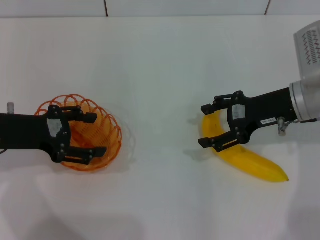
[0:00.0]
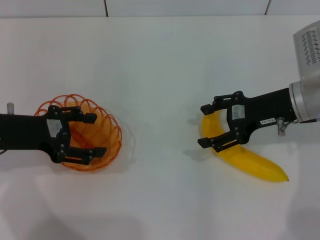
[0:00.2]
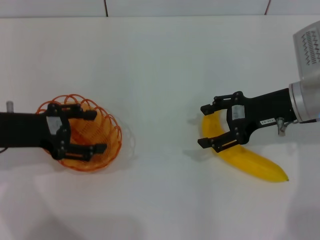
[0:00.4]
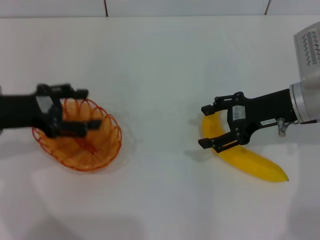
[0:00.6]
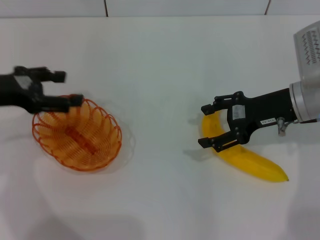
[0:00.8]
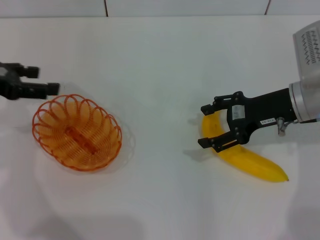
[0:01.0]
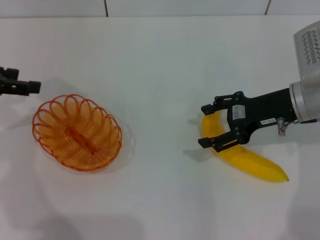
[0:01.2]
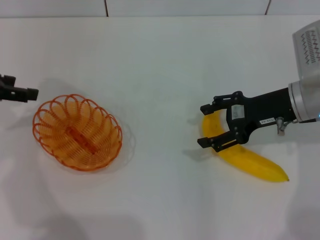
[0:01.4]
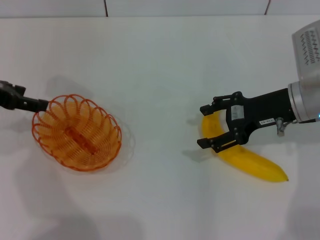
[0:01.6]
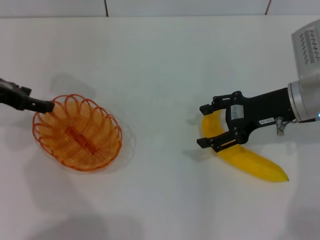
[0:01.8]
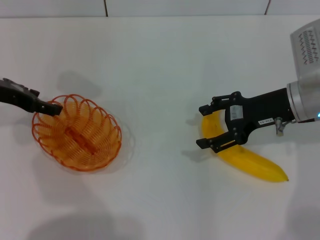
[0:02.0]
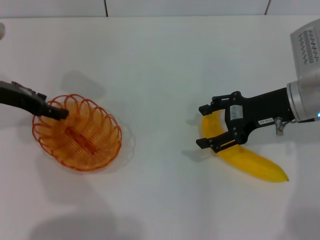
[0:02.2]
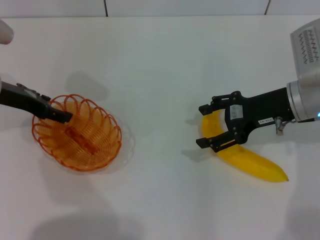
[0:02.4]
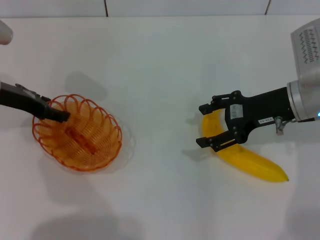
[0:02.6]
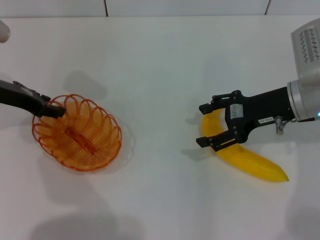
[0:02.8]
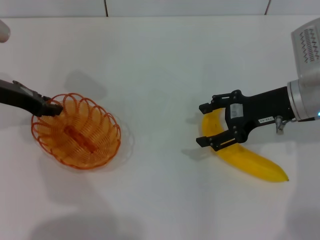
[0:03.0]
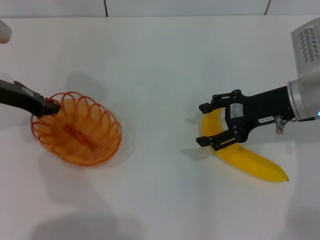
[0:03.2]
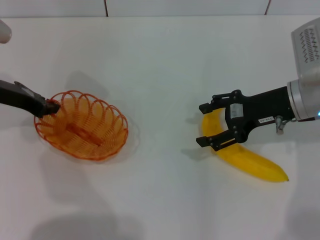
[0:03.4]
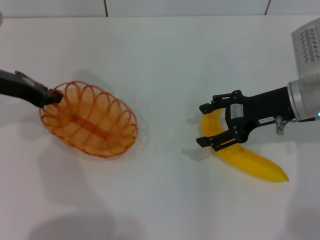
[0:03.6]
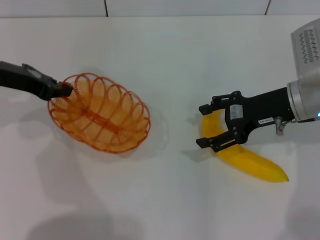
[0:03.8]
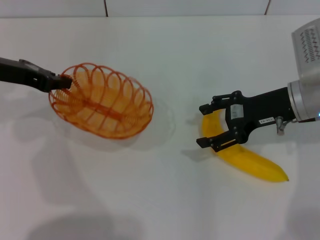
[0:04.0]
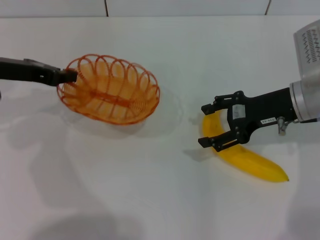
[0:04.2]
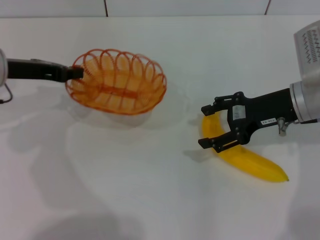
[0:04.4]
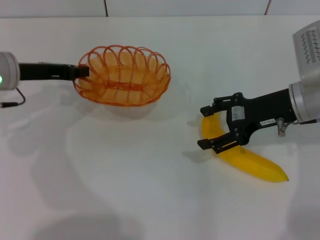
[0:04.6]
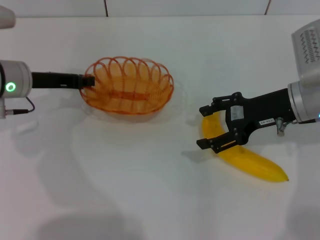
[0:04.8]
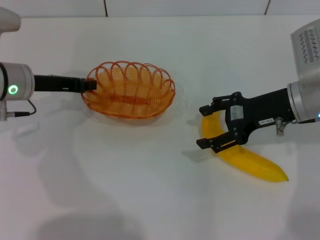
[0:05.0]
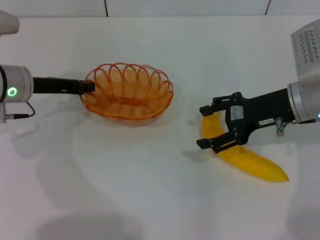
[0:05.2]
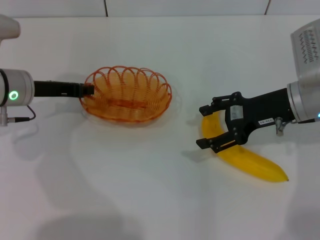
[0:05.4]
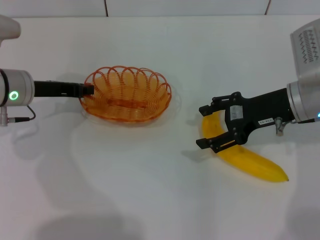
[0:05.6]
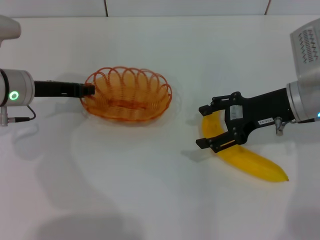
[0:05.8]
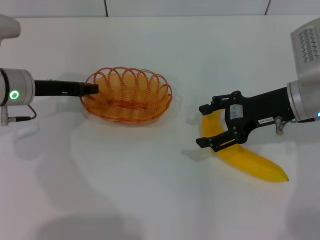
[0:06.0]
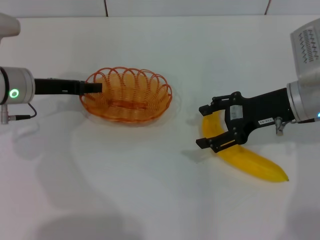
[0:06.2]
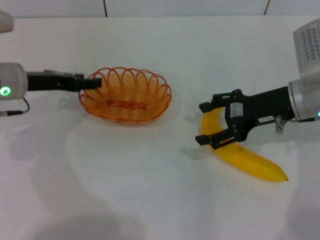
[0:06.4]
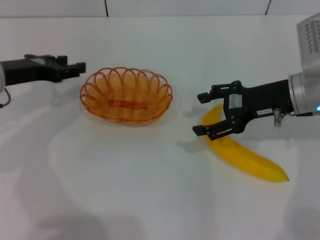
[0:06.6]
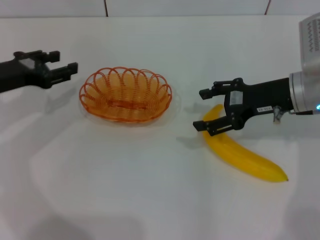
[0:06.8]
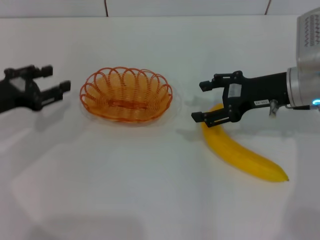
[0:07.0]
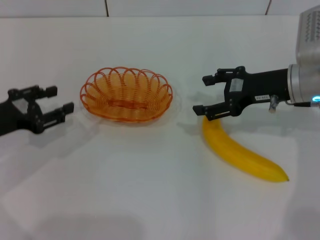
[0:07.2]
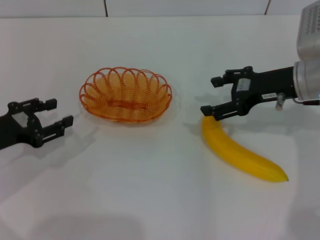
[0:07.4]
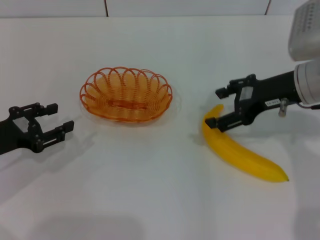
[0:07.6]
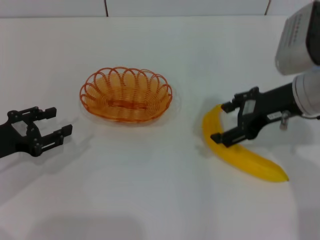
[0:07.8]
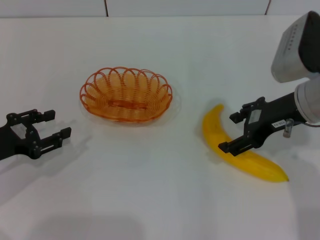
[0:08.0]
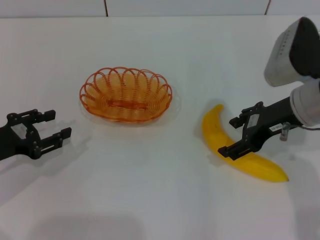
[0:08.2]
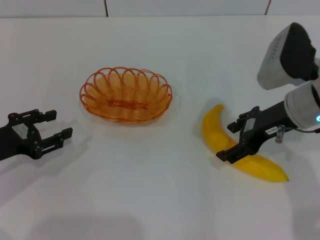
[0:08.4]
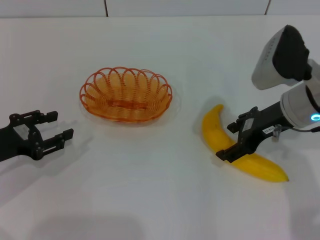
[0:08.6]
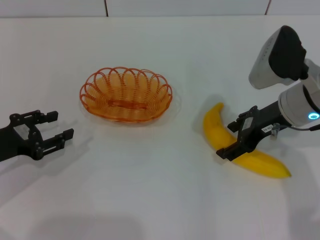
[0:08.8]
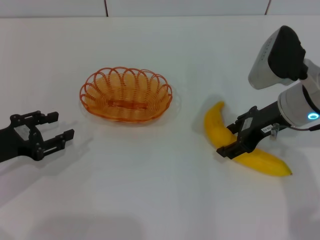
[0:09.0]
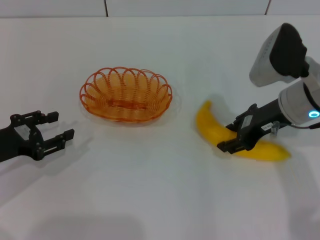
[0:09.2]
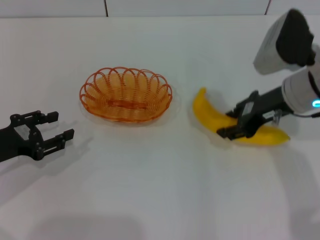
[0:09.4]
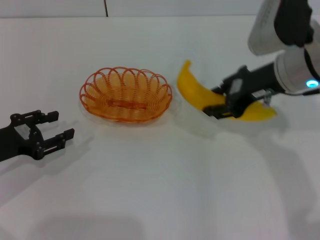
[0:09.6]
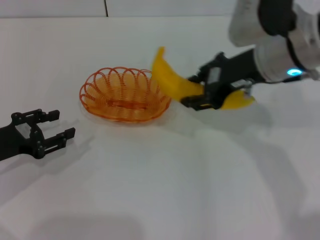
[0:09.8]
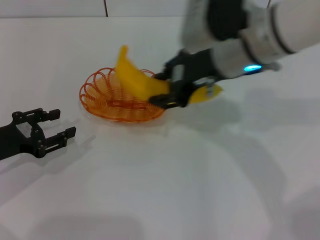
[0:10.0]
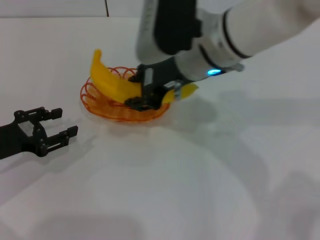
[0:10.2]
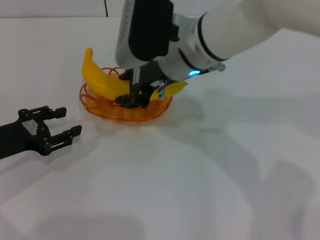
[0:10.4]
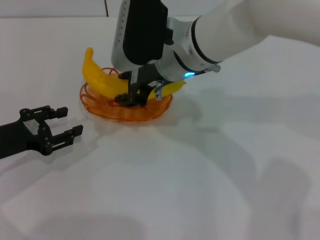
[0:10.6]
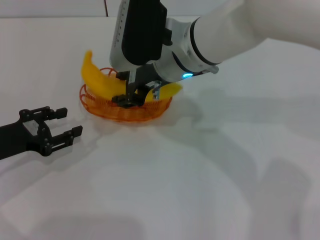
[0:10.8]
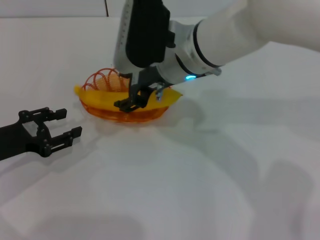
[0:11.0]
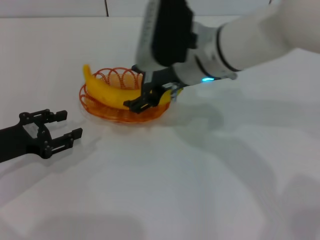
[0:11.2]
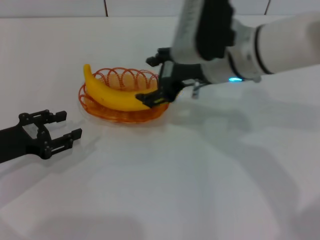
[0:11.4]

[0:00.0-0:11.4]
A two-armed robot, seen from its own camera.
Step, 0:00.0 to 0:03.6: Pick up the basket with the left gripper.
Step, 0:03.8 to 0:06.6: Place the basket in the center of view with the left gripper.
Step, 0:06.8 to 0:09.4: Pick up the banana with the right gripper.
Step, 0:09.6 to 0:11.4: Place the banana into the basket with the right gripper.
0:00.0 to 0:01.4: The left gripper is displaced upward and to the left by about 10 cm.
0:01.4 to 0:02.8: The left gripper goes about 5 cm to the right.
0:02.8 to 0:04.2: The left gripper closes its fingers.
0:04.2 to 0:05.6: The left gripper shifts about 5 cm downward.
0:05.6 to 0:07.2: The left gripper heads backward and to the left, covering about 10 cm, and opens its fingers.
0:08.6 to 0:10.0: The right gripper is displaced to the left and upward by approximately 15 cm, and closes up.
0:10.0 to 0:11.4: The right gripper opens its fingers.

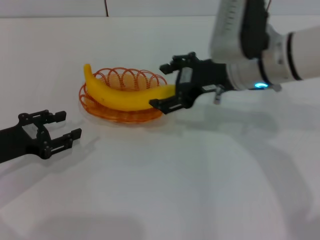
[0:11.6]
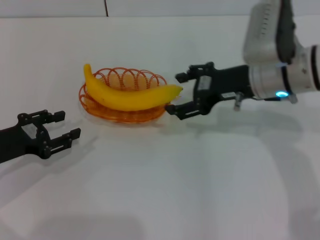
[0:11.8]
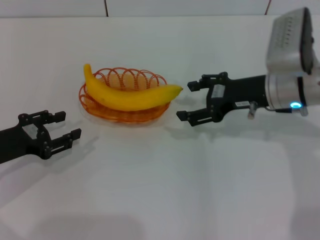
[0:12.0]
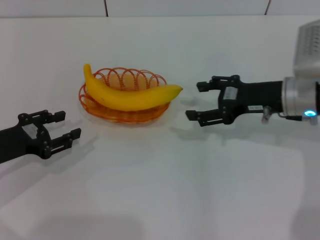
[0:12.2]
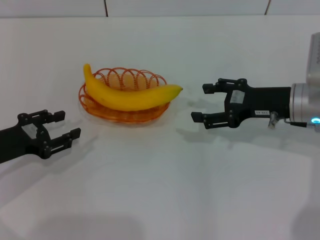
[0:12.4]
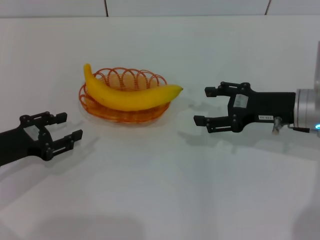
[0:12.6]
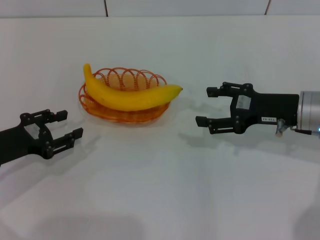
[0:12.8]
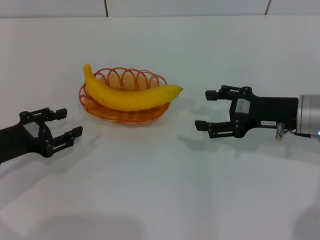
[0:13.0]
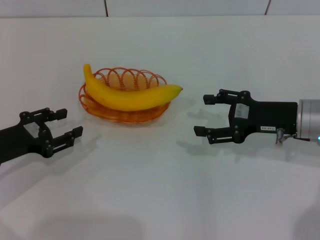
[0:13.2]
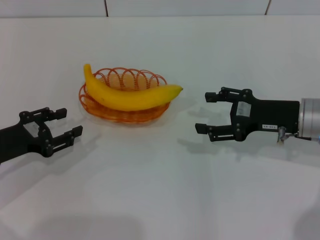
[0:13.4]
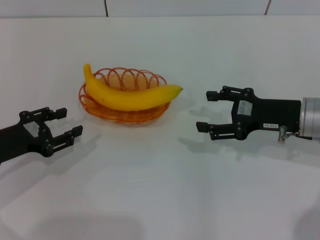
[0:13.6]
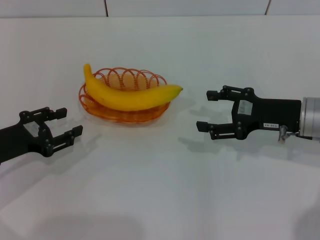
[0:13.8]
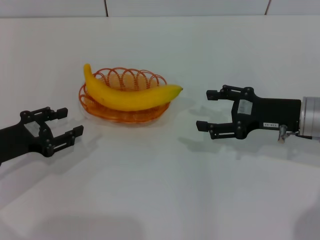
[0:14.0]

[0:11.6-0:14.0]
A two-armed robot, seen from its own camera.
0:11.6 to 0:12.8: The right gripper shifts roughly 15 cm to the right and downward.
0:12.8 to 0:14.0: The two grippers keep their place.

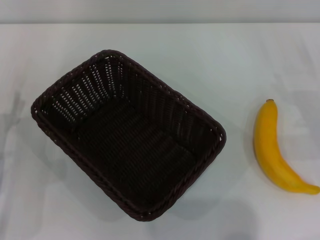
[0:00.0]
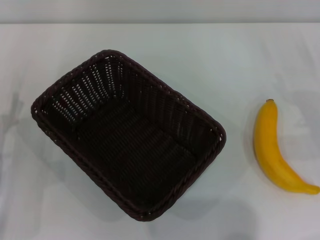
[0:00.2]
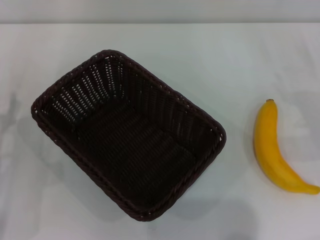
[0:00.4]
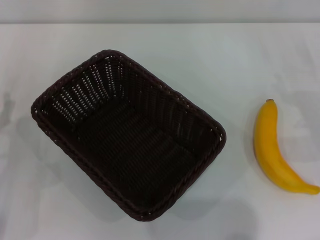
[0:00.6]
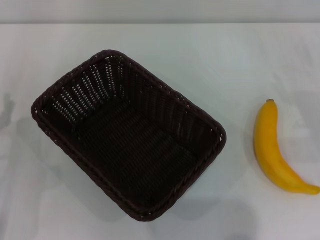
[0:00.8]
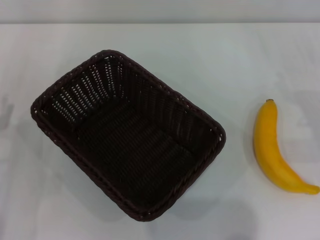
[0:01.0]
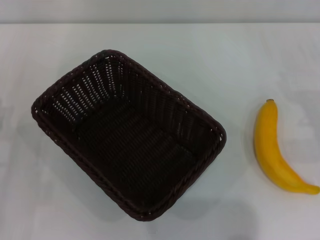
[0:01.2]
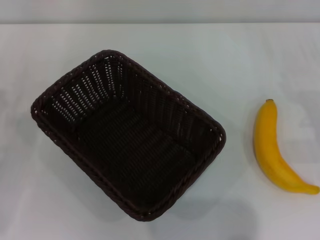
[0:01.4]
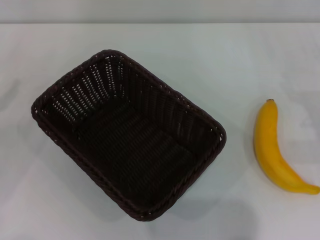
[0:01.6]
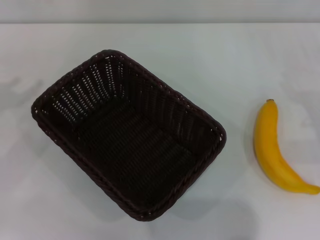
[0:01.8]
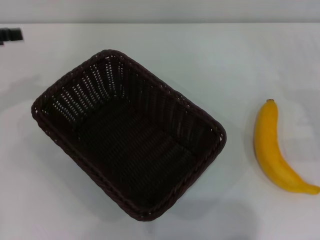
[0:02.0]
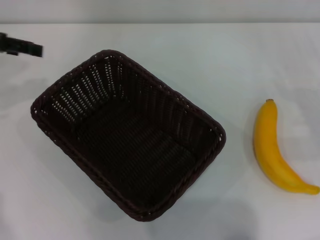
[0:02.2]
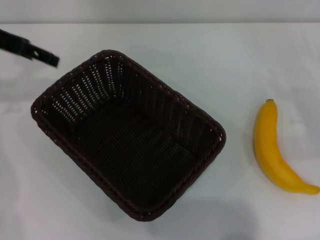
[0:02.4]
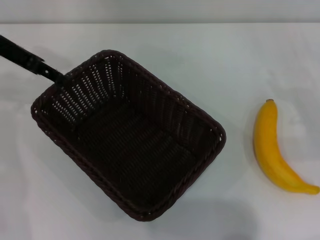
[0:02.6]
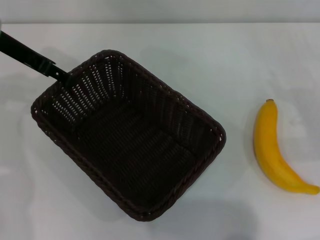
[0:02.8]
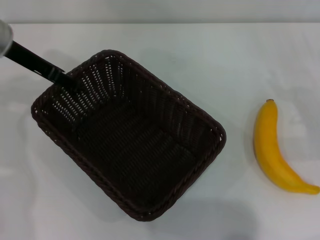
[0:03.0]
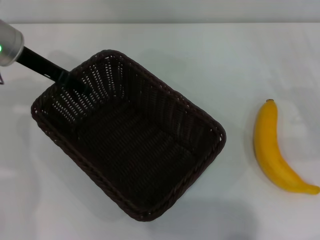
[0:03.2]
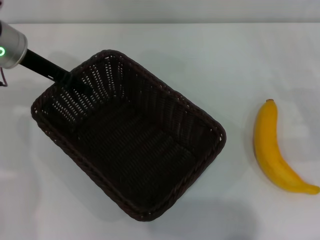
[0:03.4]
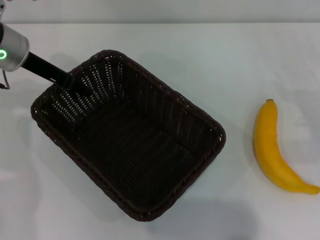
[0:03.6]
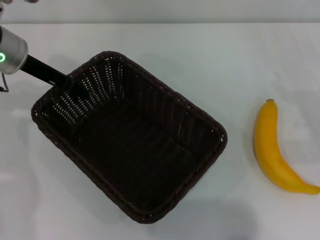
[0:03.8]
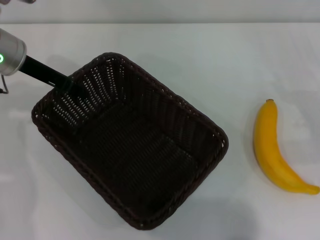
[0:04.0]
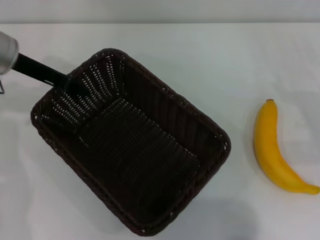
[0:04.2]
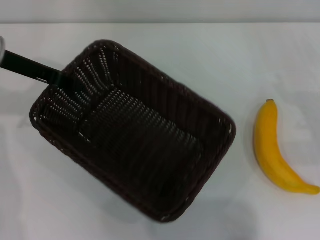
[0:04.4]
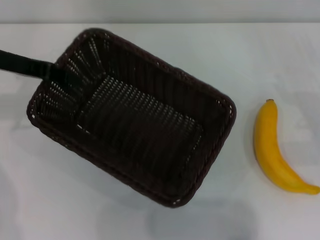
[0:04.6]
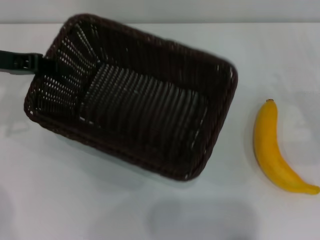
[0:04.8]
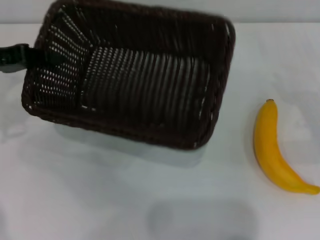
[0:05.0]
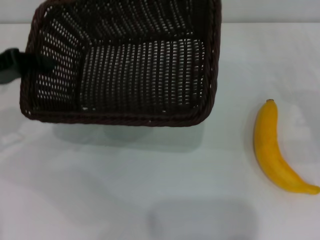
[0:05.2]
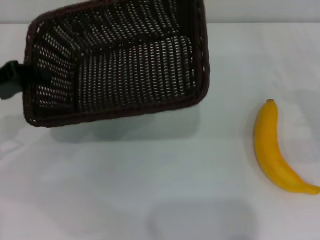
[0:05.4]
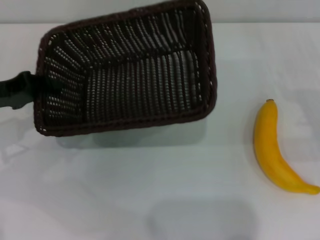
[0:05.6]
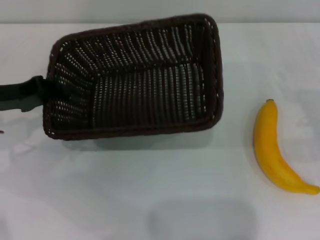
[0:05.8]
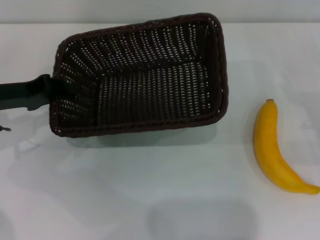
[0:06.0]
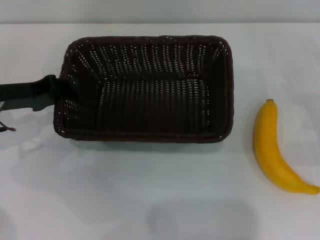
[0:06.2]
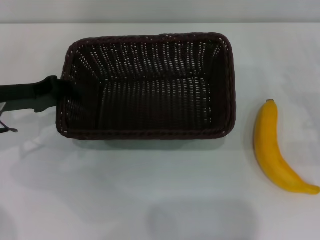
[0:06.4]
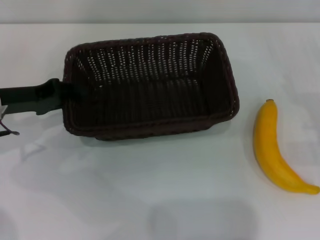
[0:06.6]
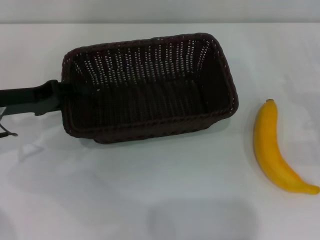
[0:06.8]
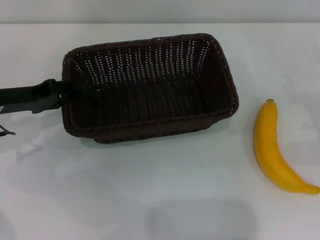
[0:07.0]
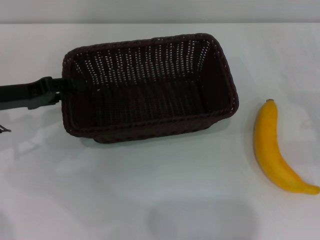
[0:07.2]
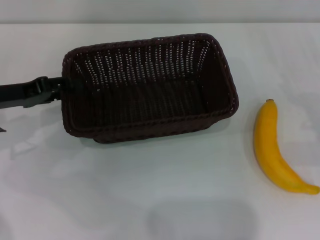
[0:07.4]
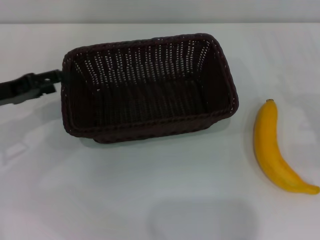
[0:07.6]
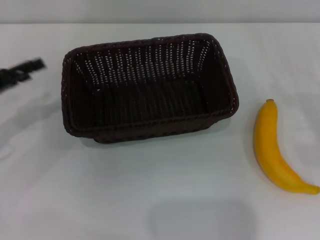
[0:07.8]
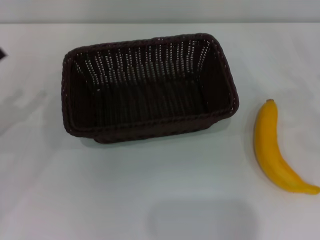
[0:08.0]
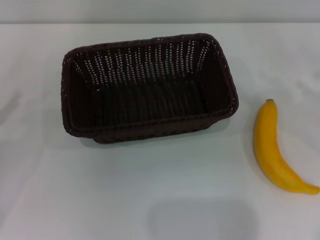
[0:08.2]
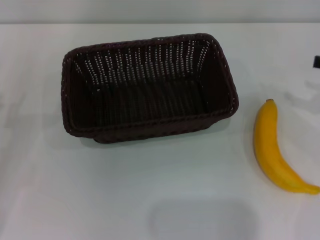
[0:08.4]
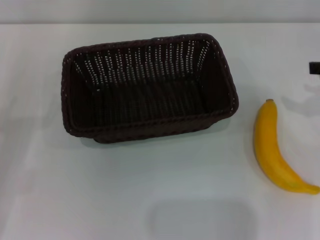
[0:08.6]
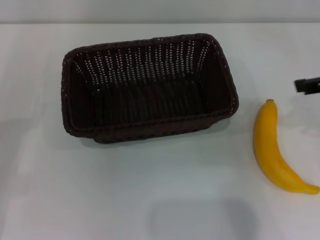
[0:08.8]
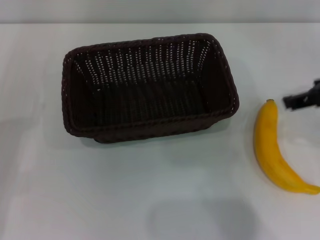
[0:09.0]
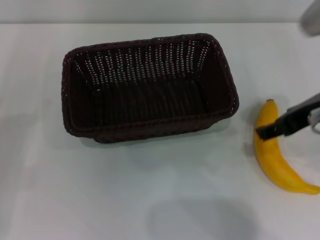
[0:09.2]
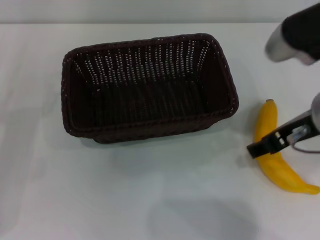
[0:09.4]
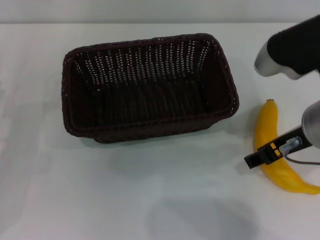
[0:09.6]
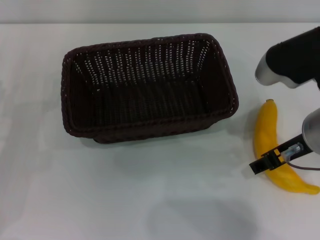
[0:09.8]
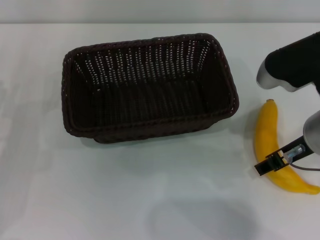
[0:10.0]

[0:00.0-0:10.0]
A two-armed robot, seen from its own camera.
Step, 0:00.0 to 0:04.4: Pick up the dark basket with the left gripper.
Step, 0:04.6 to 0:07.2: Place the dark basket in the center of view with the left gripper.
0:01.4 to 0:02.8: The left gripper travels forward, upward and to the right by approximately 25 cm.
0:02.8 to 0:04.2: The left gripper closes.
0:04.2 to 0:05.8: The left gripper heads downward, backward and to the left, covering about 10 cm.
0:05.8 to 0:07.2: The left gripper opens its fingers.
0:07.2 to 0:08.6: The left gripper heads backward and to the left, covering some 15 cm.
0:08.6 to 0:10.0: The right gripper is displaced to the left by roughly 15 cm.
